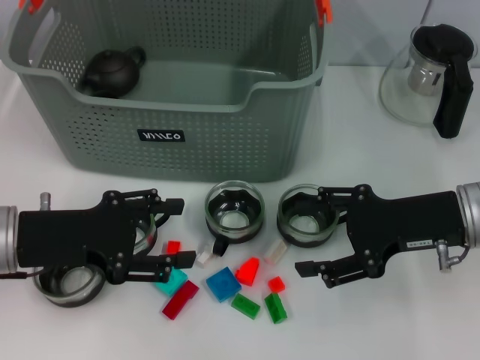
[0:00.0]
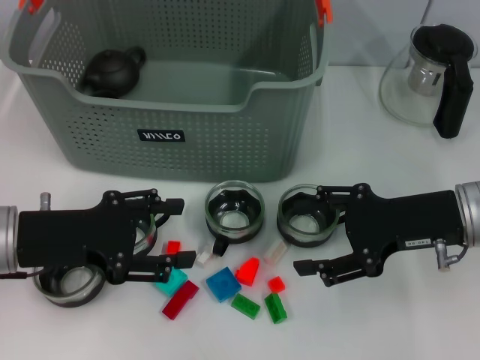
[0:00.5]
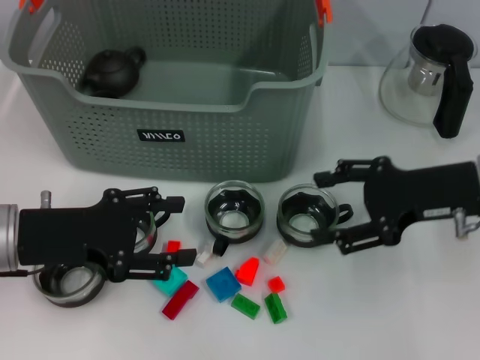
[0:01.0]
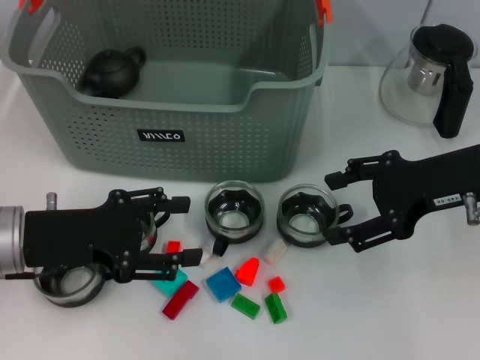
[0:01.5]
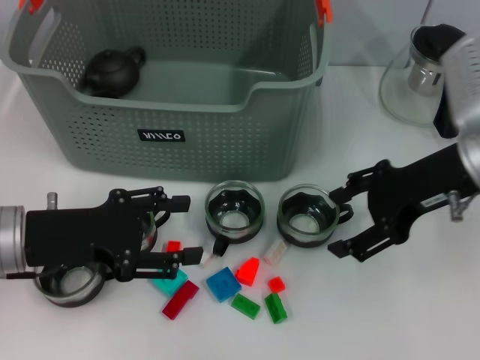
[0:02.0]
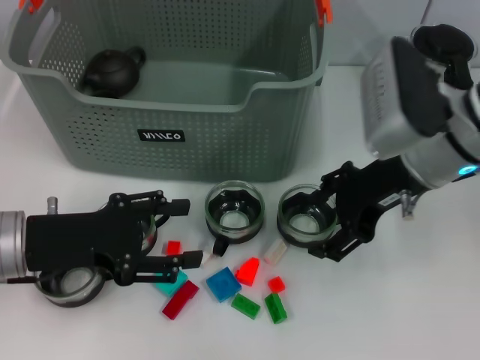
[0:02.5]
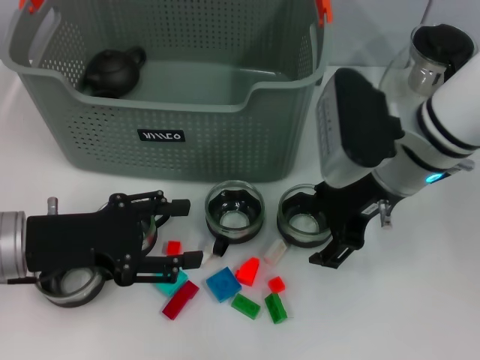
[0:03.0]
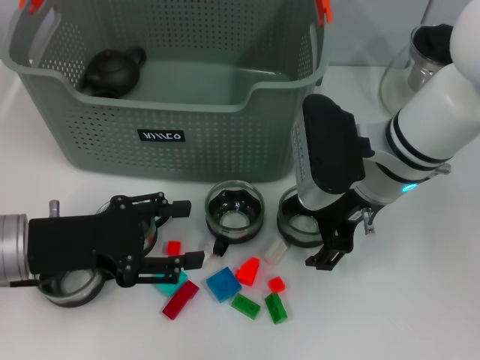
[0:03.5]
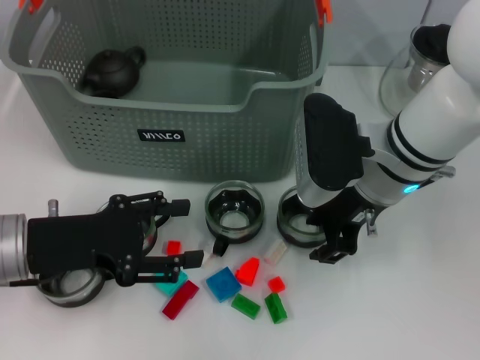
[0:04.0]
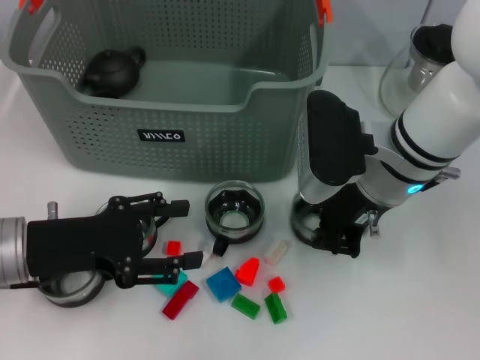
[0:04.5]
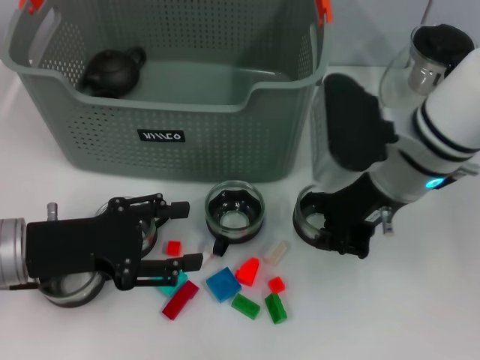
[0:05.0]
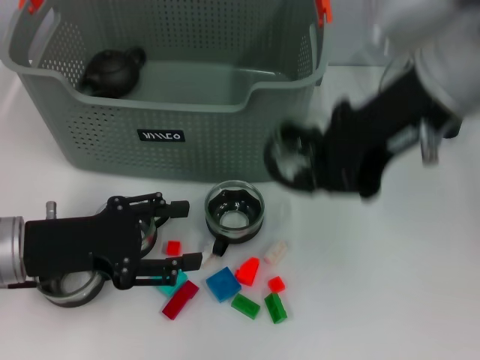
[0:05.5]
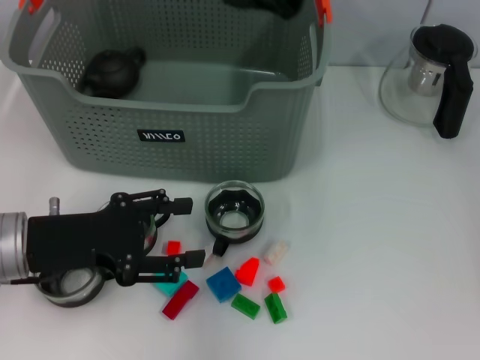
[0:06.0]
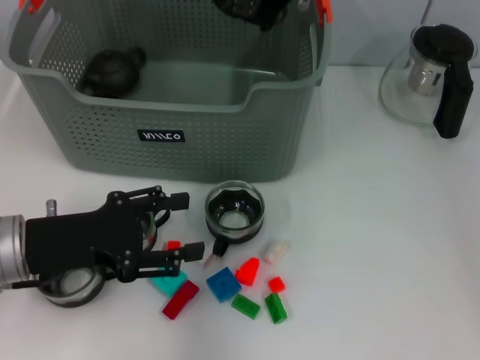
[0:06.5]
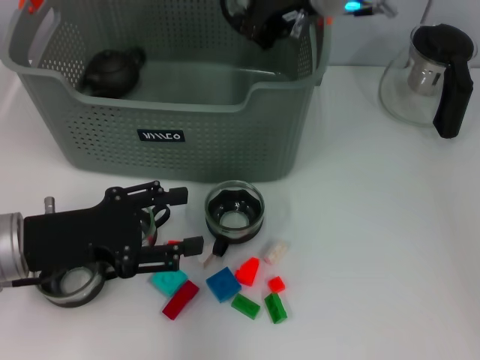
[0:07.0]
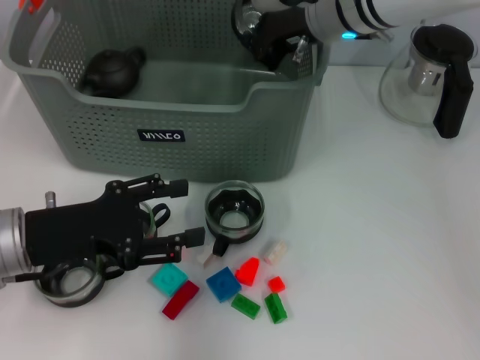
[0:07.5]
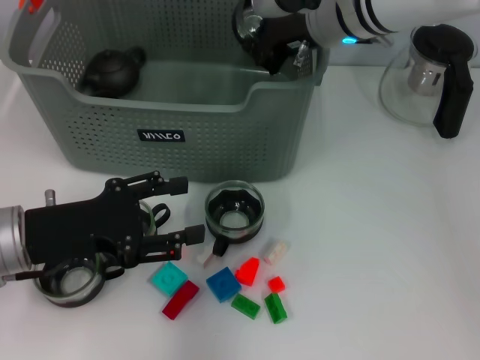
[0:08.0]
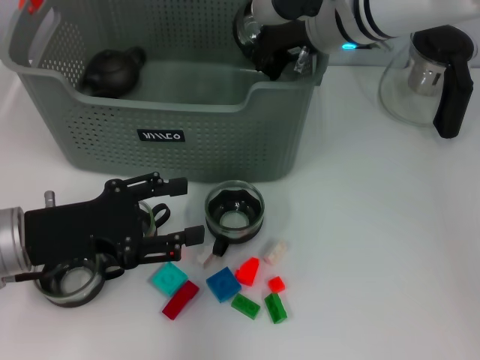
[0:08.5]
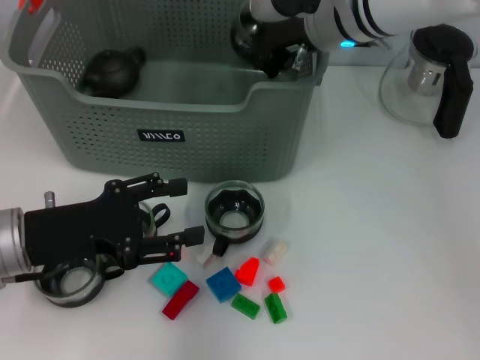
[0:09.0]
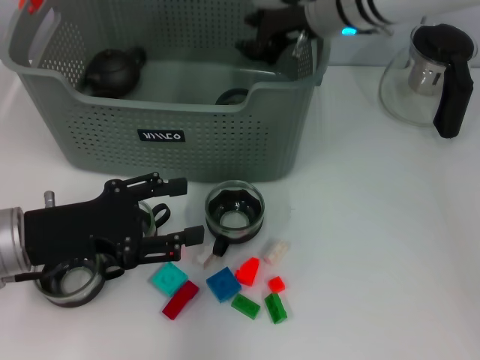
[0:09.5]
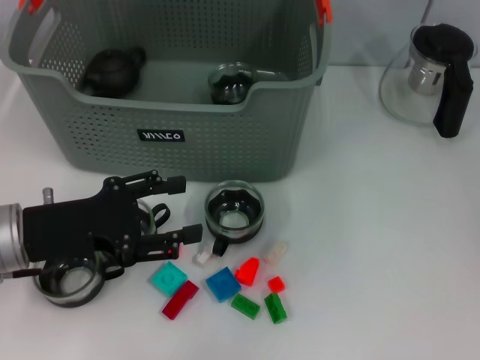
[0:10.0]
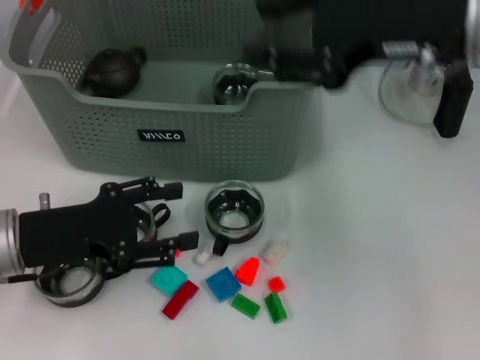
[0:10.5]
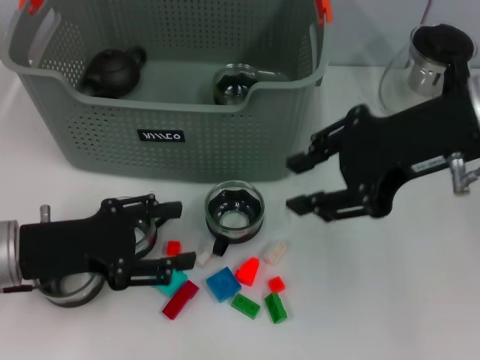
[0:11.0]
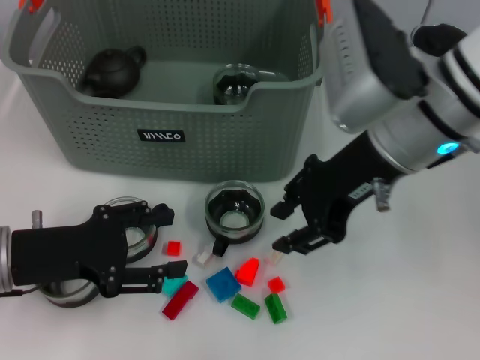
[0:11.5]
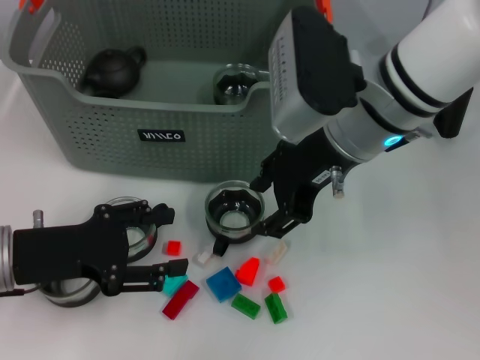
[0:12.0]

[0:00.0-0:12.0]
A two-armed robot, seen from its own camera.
Task of the whole recording: pick up the teacup on the table and place it into the storage bin, pick up the block on the table and place it into the storage bin.
Step, 0:00.0 to 0:04.5: Grasp the cup with right gripper.
Step, 0:05.0 to 0:09.0: Place the cup in the storage box with right gripper.
0:00.0 to 0:02.0: The right gripper moves upward, about 5 cm.
0:02.0 to 0:04.0: The right gripper goes some 10 cm to the left.
0:04.0 to 0:06.0: The right gripper travels upward by some 20 cm, and closes its fingers.
0:06.0 to 0:08.0: The right gripper travels downward and forward by approximately 20 cm.
0:08.0 to 0:10.0: The right gripper heads upward, covering roughly 10 cm, and opens its fingers.
0:10.0 to 0:12.0: The right gripper moves downward and backward, about 15 cm.

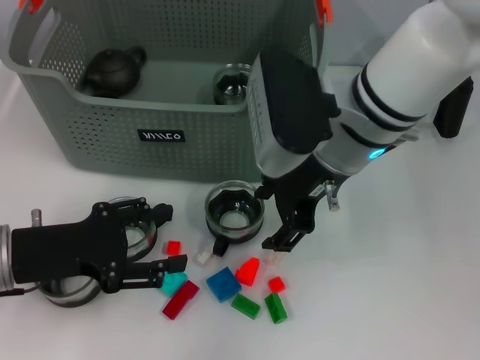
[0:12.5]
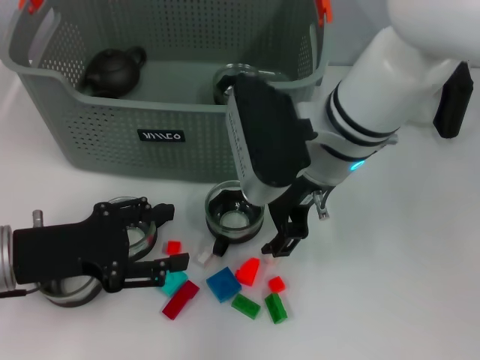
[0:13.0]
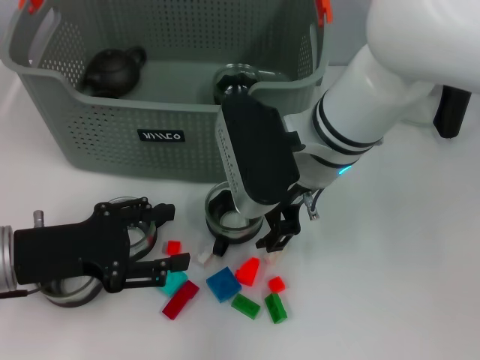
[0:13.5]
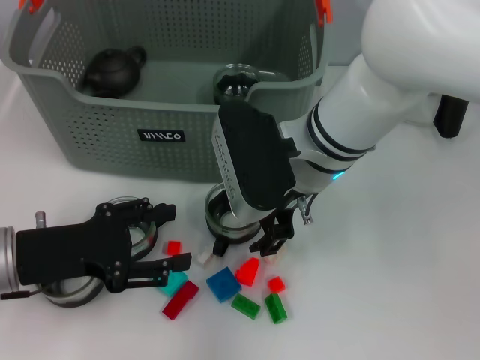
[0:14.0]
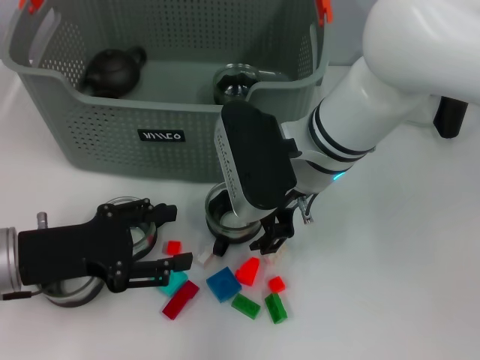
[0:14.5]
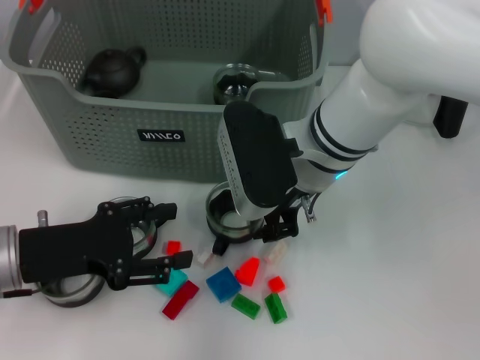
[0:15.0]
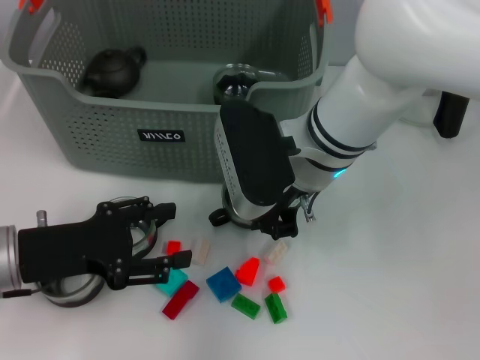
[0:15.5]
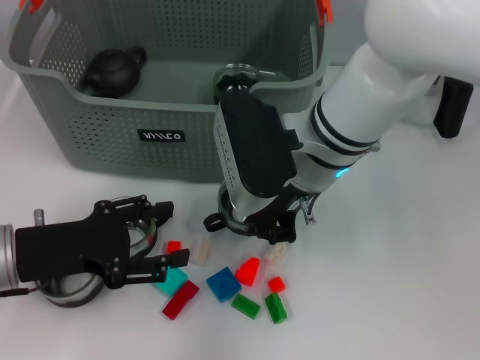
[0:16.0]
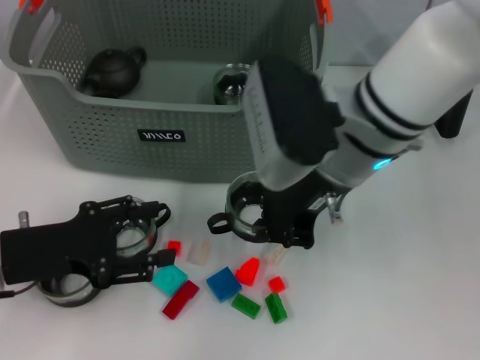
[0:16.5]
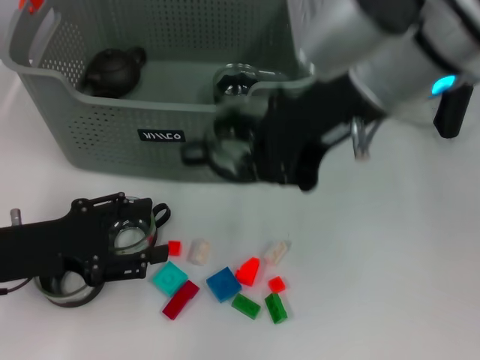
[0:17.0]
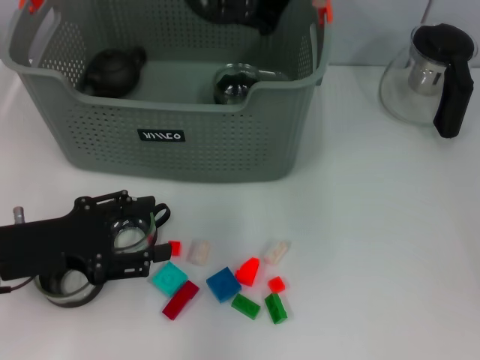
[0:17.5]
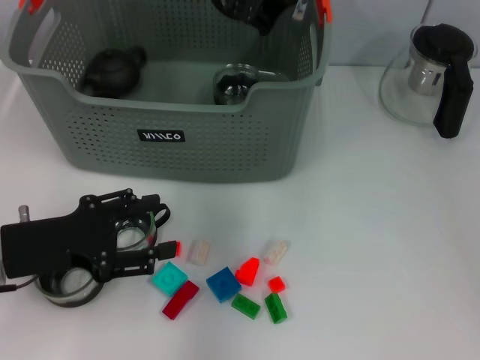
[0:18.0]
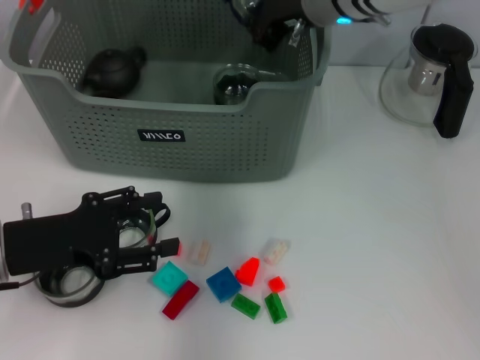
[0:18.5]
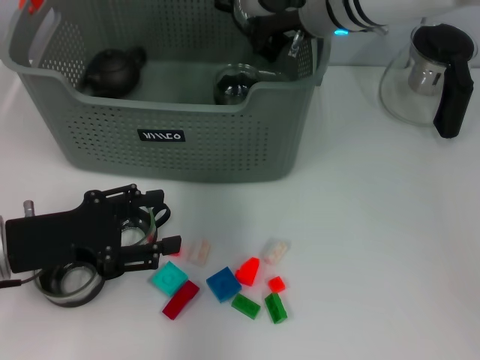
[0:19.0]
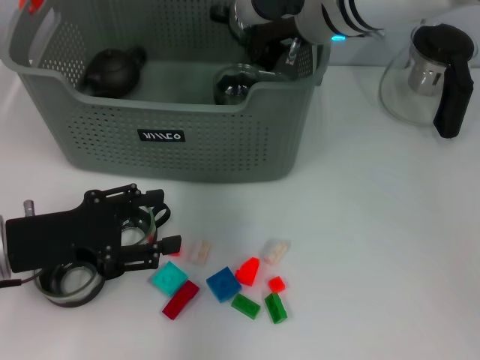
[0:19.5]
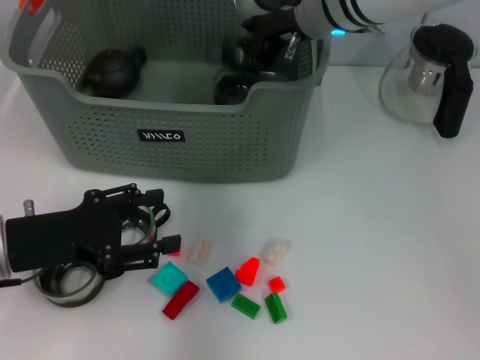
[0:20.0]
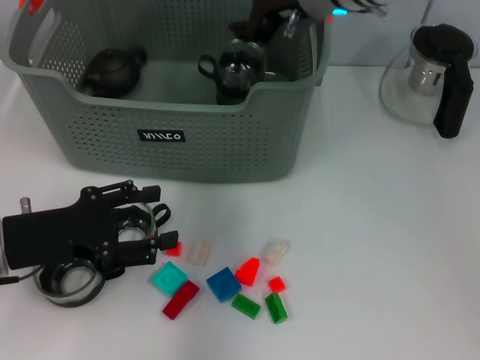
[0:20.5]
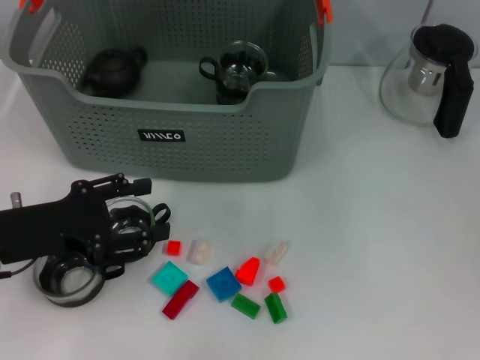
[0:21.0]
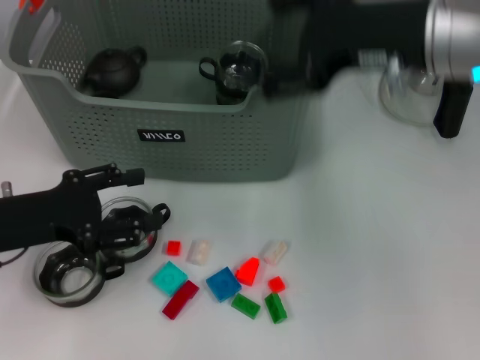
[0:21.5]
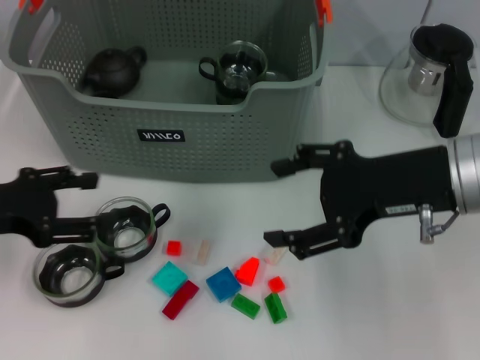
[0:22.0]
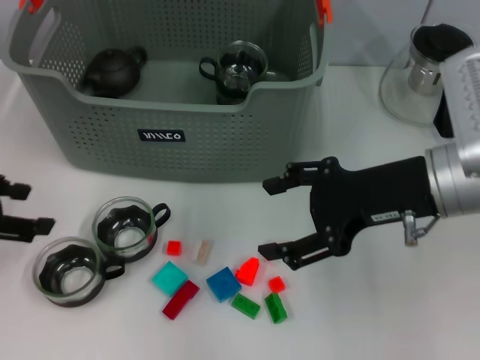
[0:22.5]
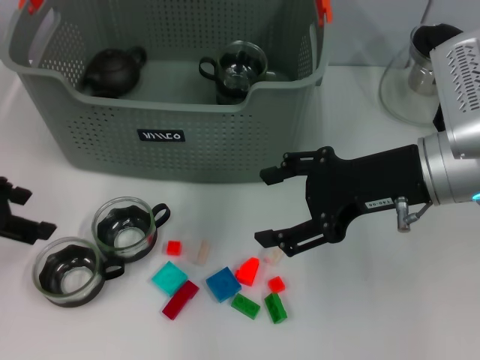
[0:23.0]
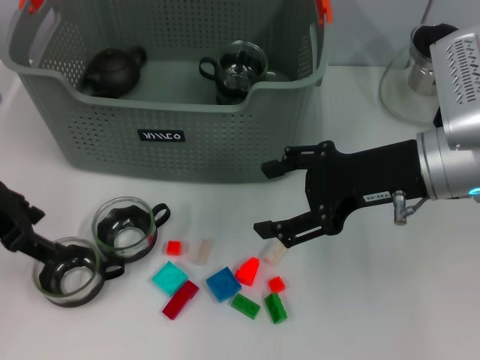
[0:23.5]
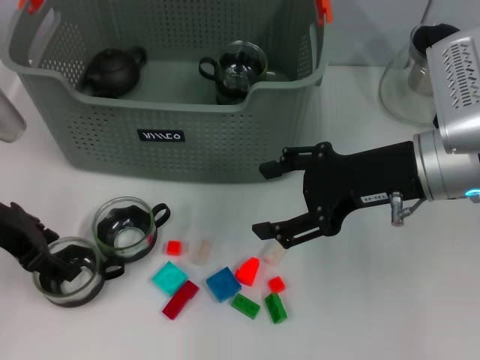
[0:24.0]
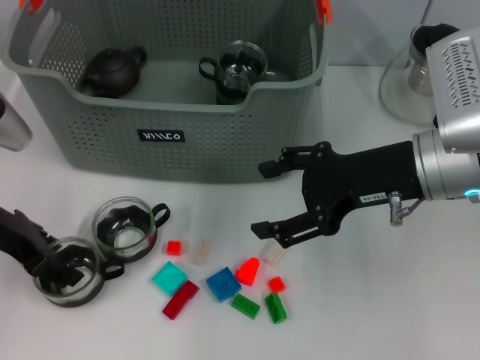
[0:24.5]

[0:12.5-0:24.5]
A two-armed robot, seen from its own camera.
Task of the whole recording: pick up the teacup on the table and place it into the storage bin, pick up the block on the table and place it into the storage bin.
Step, 0:12.5 to 0:15.0: Grasp the cup with right gripper.
Step, 0:15.5 to 0:20.0: Place the cup in the storage box with right gripper.
0:12.5 to 0:14.5: There are only small adjustments of the grippers.
0:14.5 to 0:16.5: The right gripper ends up roughly 5 cm from where it was, and closes.
0:16.5 to 0:18.5: The right gripper heads forward, covering some 15 cm.
0:18.5 to 0:20.5: The right gripper opens up.
0:20.5 to 0:22.5: The left gripper travels upward and to the left by about 10 cm; the right gripper is displaced backward and to the right by approximately 20 cm, and opens up.
0:22.5 to 0:24.5: The left gripper shifts roughly 5 cm to the right.

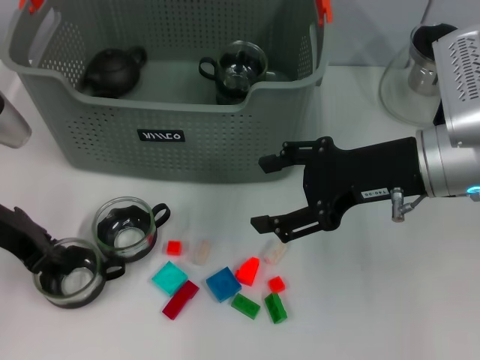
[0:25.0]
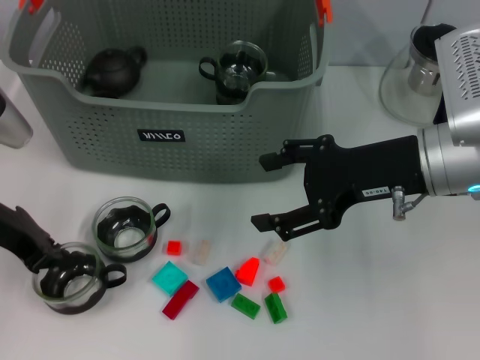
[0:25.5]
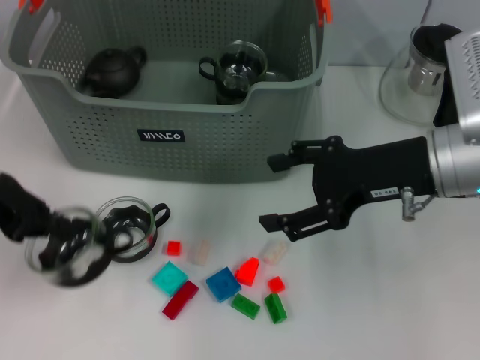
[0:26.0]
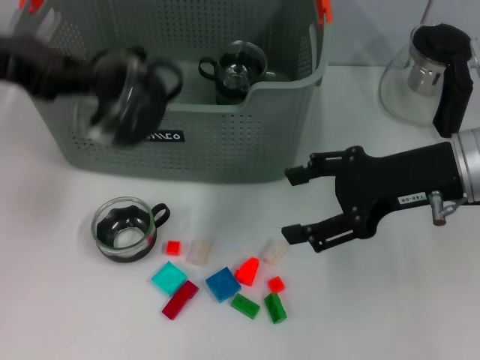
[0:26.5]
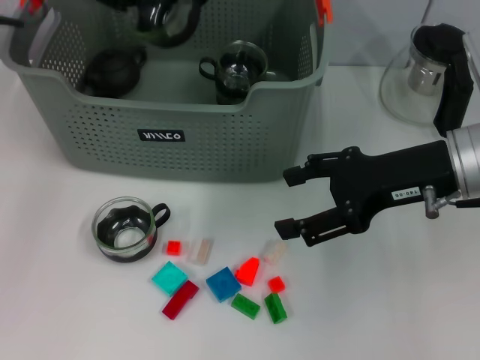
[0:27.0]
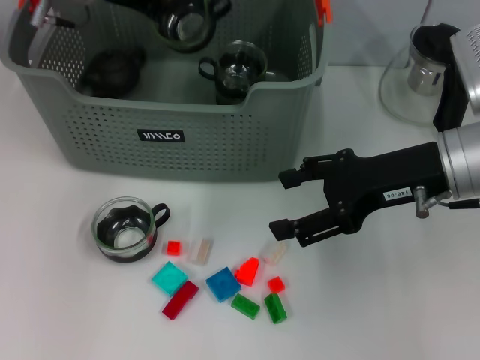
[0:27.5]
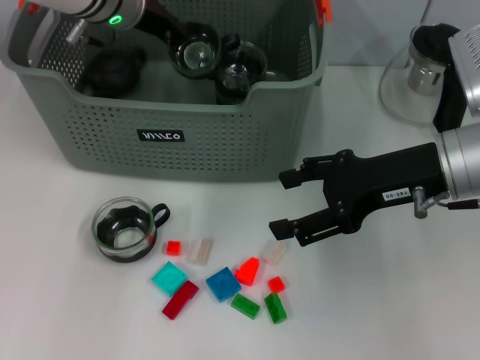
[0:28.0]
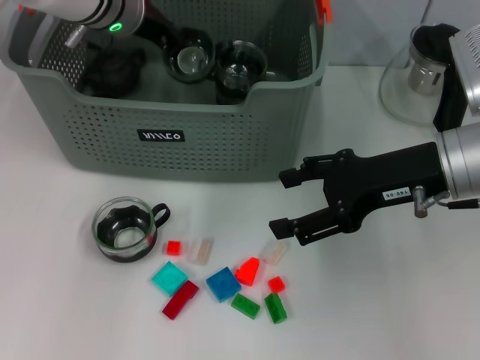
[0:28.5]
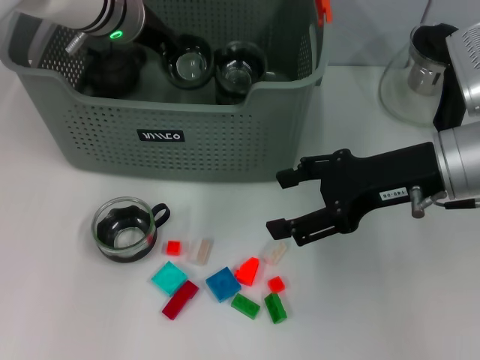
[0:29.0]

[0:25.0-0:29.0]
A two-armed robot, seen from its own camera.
Task of the whole recording: pick up the teacup on the table and place it into the storage bin, pick up the block on the table and place it into the storage bin.
0:25.0 to 0:27.0: The left gripper shifts about 15 cm forward and upward, and closes.
0:27.0 to 0:29.0: The left gripper shifts some 10 cm to the right and downward.
